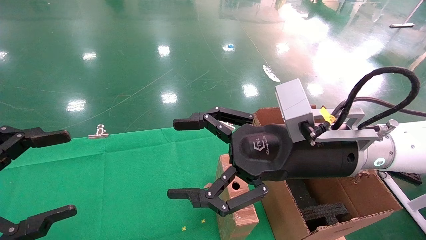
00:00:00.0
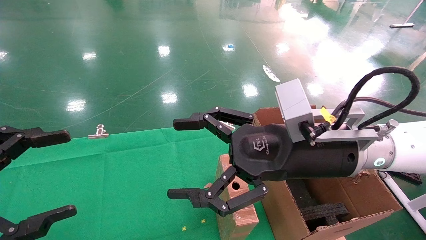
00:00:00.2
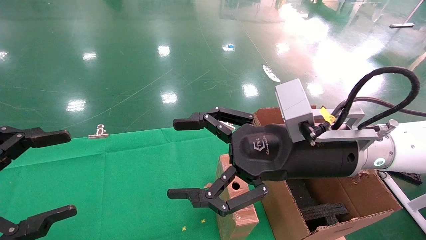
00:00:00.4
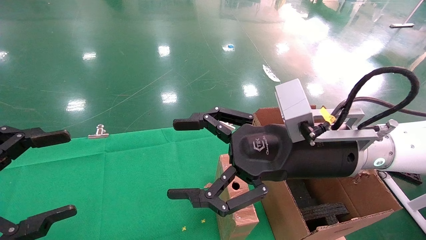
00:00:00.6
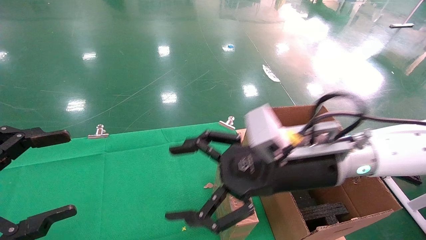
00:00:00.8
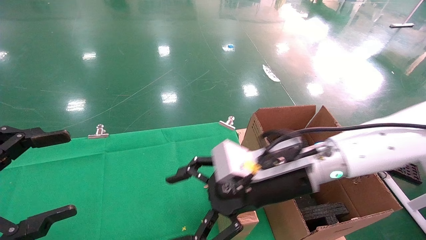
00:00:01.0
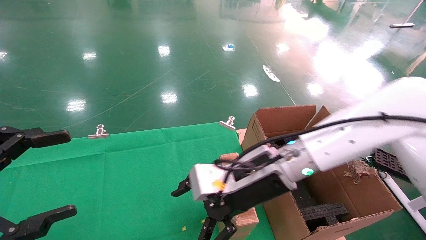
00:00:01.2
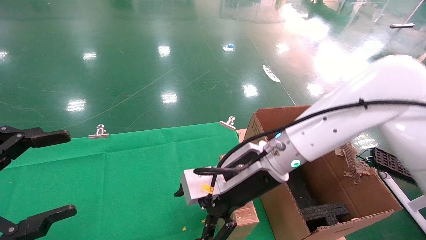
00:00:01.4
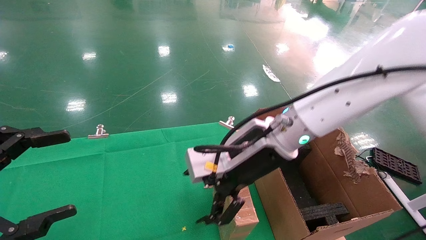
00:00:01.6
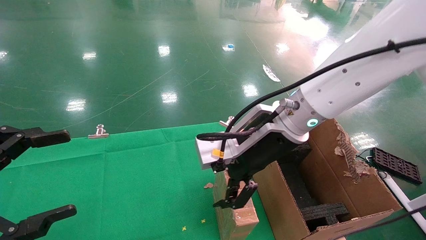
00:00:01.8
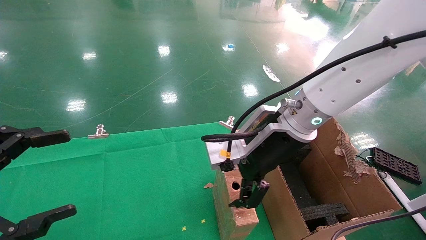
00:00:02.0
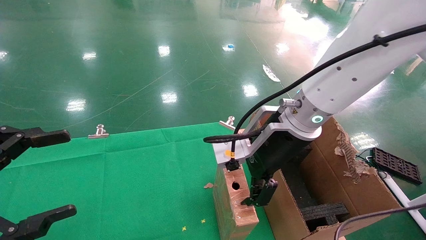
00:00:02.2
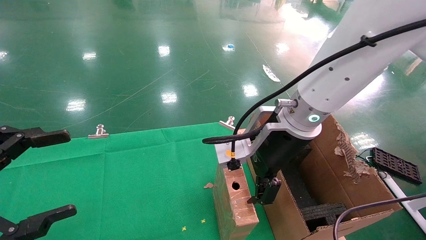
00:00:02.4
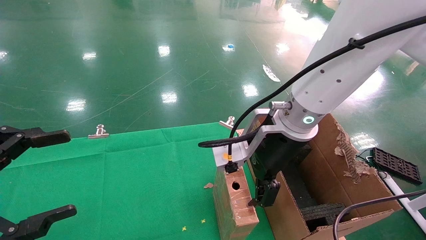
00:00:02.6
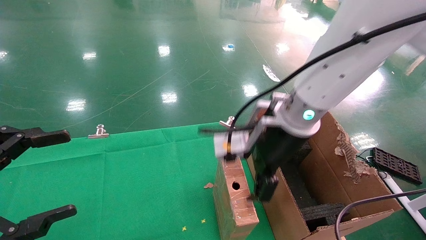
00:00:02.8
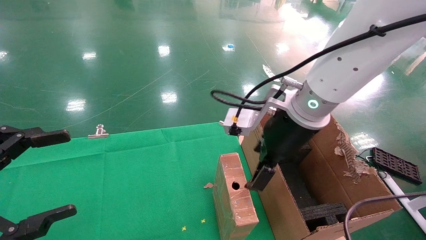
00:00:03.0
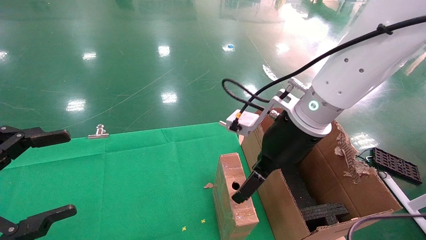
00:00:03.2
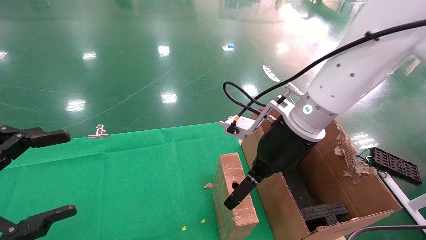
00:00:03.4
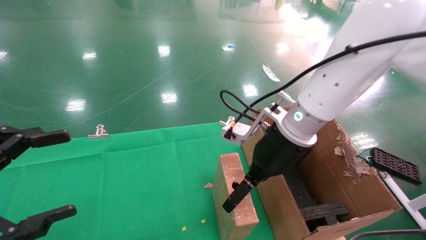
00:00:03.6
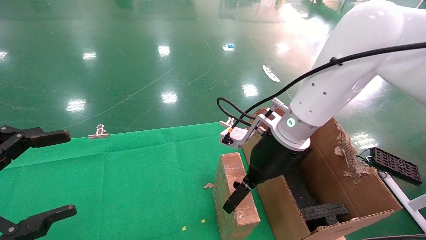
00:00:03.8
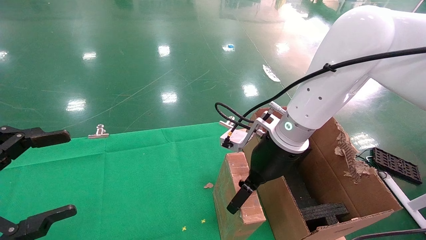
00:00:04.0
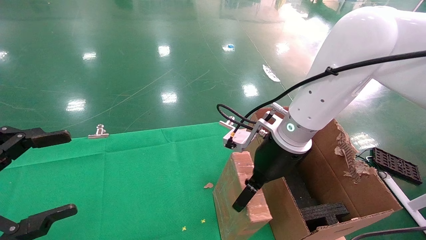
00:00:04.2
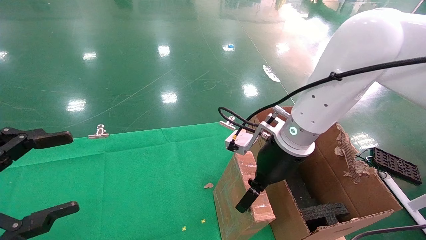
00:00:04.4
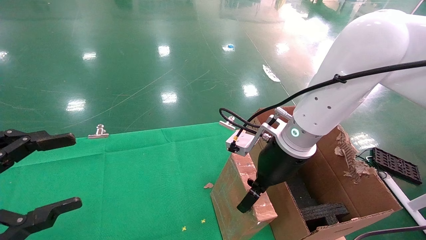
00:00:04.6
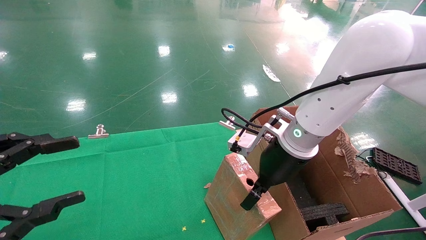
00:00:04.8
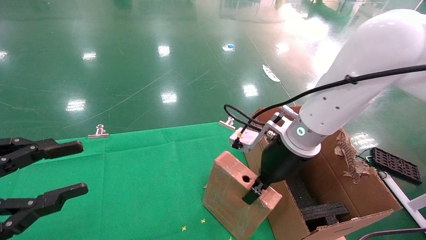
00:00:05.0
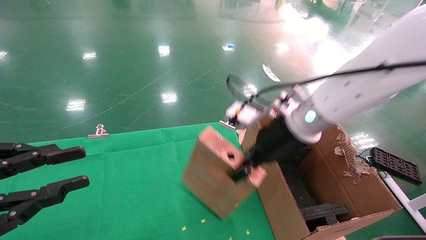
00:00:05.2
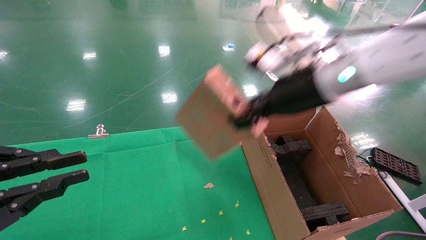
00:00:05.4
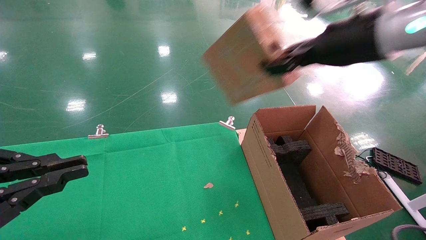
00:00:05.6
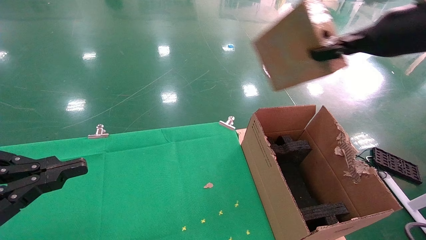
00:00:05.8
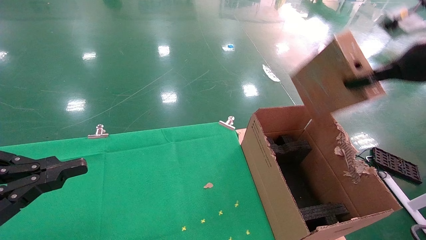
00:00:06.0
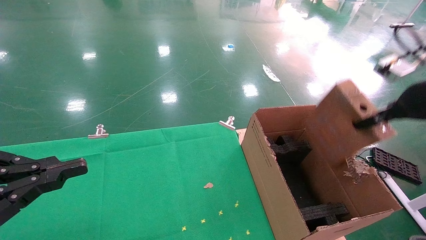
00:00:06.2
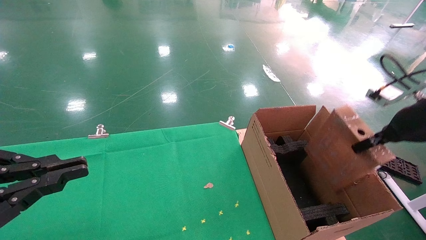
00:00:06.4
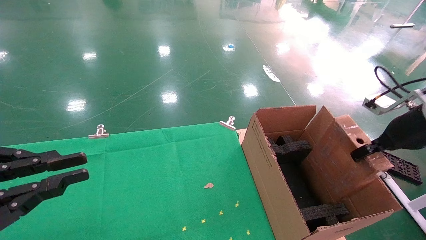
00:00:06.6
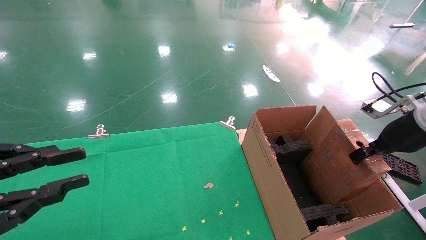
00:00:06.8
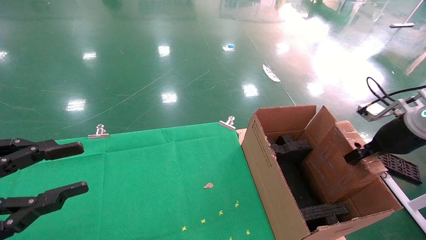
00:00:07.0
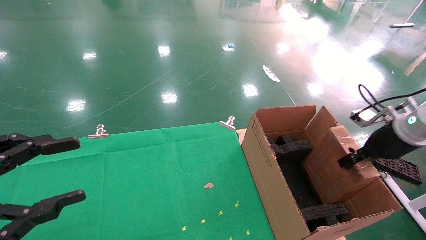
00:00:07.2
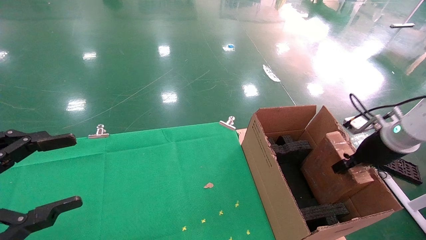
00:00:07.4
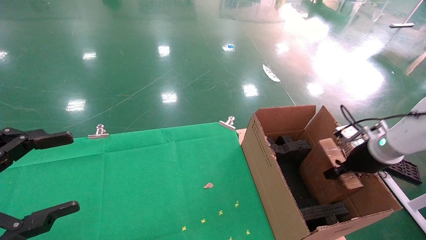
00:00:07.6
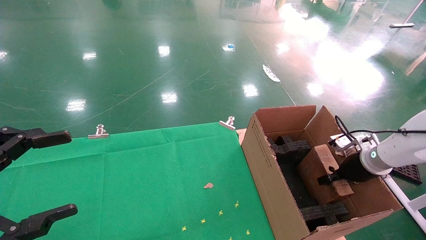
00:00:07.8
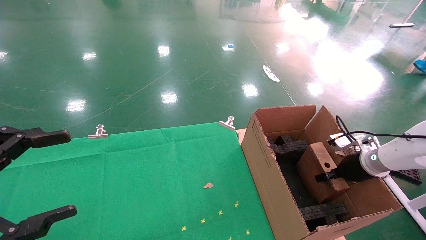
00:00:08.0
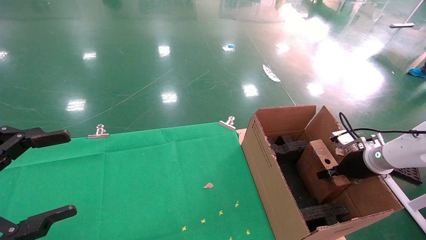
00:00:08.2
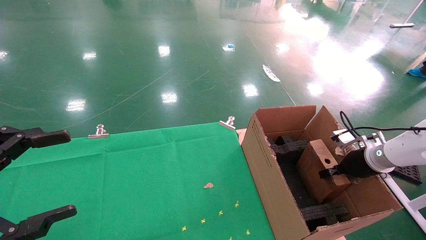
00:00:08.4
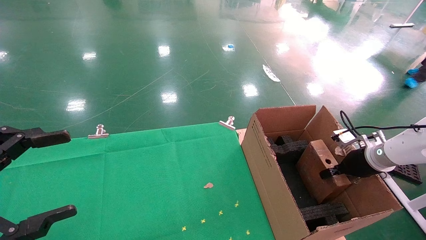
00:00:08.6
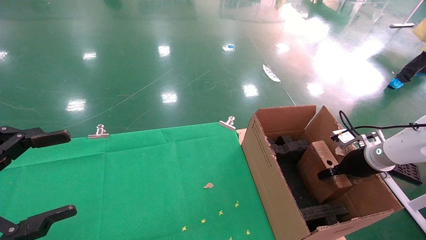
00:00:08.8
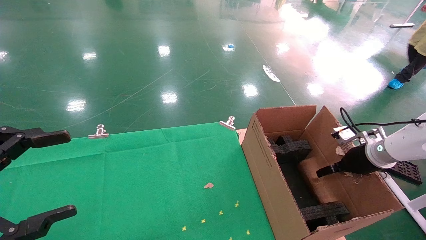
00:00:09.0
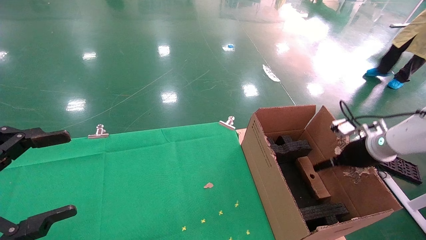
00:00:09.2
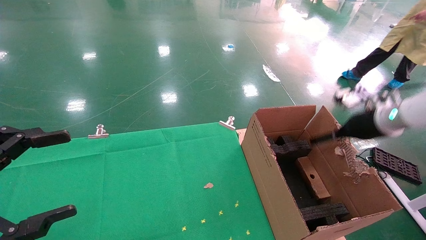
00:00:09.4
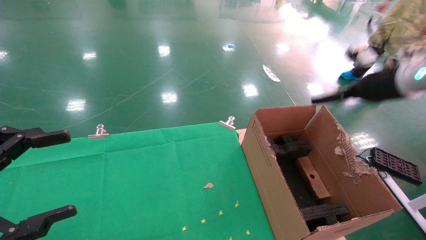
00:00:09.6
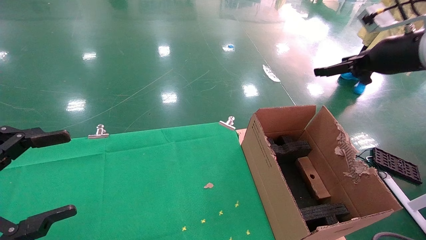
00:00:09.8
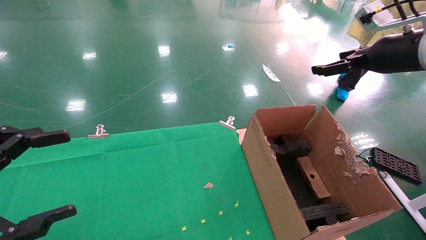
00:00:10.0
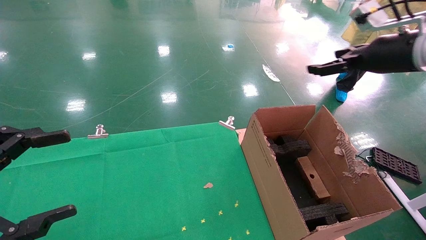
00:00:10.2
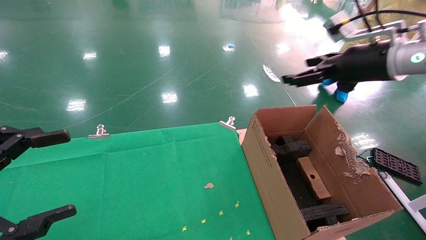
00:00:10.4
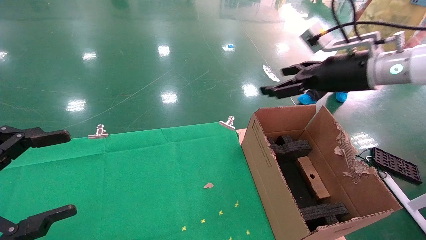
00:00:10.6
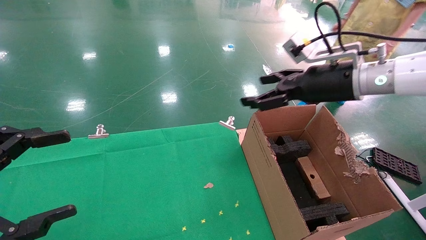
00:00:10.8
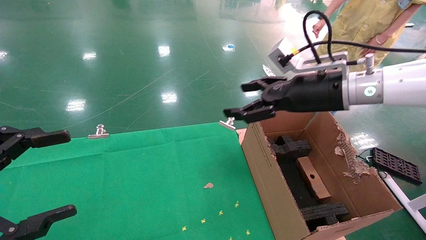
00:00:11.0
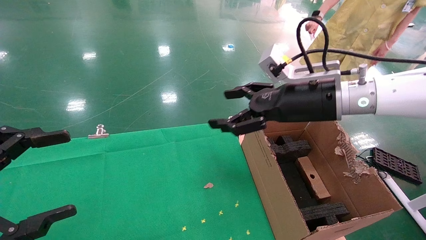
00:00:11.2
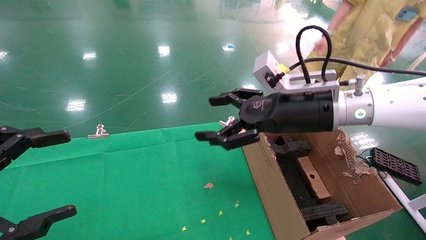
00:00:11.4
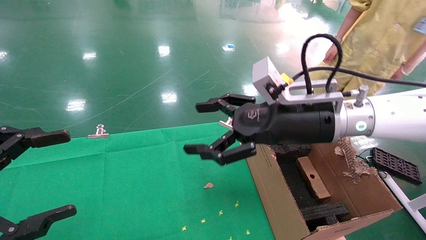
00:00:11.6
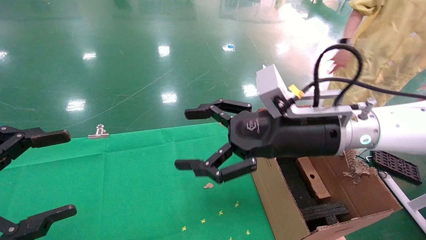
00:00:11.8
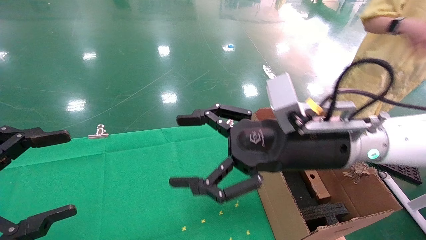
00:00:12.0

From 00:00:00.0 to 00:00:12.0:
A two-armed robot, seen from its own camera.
Task of the whole recording: using a robotic arm to pick up a cardboard box and palace it the carton.
Step, from 00:00:01.0 to 00:00:05.0: Pick up the mouse and the power cord paper box.
Step, from 00:00:05.2 to 00:00:09.2: Place the mouse and the power cord paper box into the container.
From 00:00:00.0 to 00:00:01.6: The right gripper shifts roughly 10 cm to the left and forward.
From 00:00:01.6 to 00:00:03.0: The right gripper changes place by some 5 cm.
From 00:00:03.0 to 00:00:04.4: The right gripper heads downward, covering approximately 5 cm.
From 00:00:04.4 to 00:00:06.0: The right gripper travels to the right and upward by approximately 25 cm, and closes. The left gripper closes its fingers.
From 00:00:06.0 to 00:00:07.6: The left gripper opens; the right gripper is displaced downward by roughly 20 cm.
From 00:00:07.6 to 00:00:09.0: The right gripper opens.
From 00:00:09.0 to 00:00:10.4: The right gripper goes about 25 cm upward and to the left, and opens.
From 00:00:10.4 to 00:00:12.0: The right gripper is displaced to the left, downward and backward by approximately 20 cm.

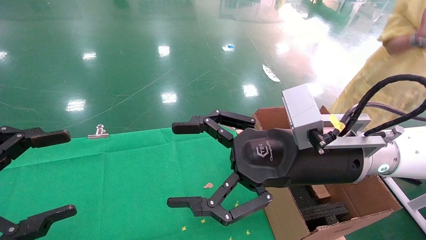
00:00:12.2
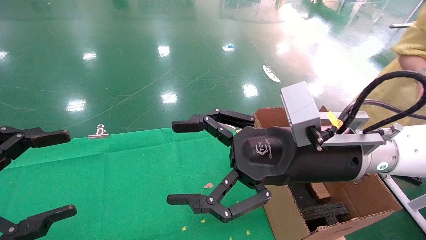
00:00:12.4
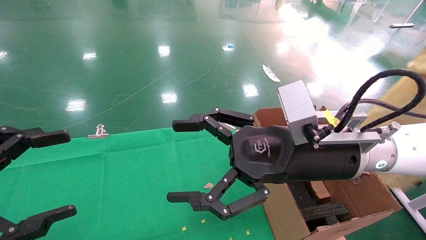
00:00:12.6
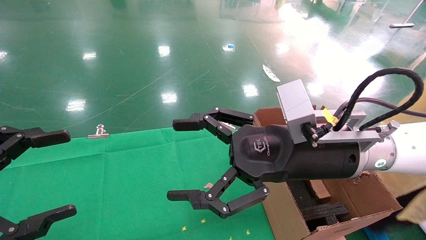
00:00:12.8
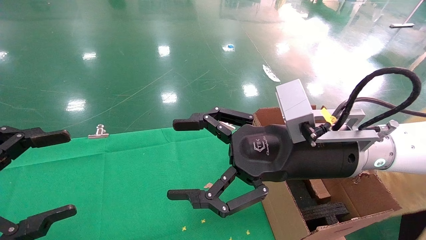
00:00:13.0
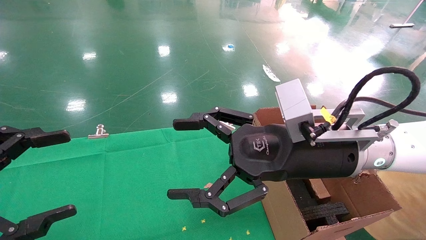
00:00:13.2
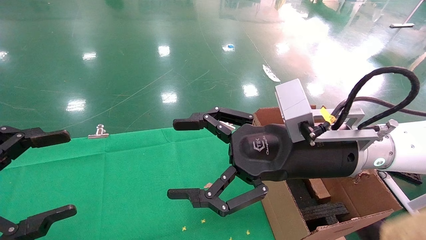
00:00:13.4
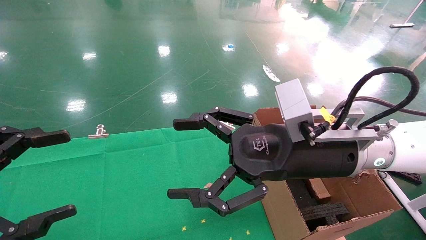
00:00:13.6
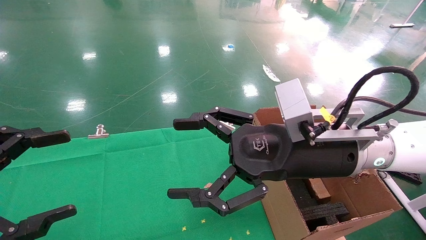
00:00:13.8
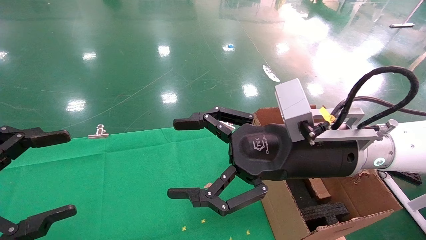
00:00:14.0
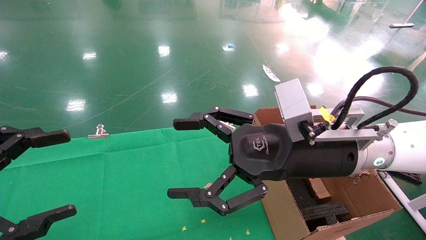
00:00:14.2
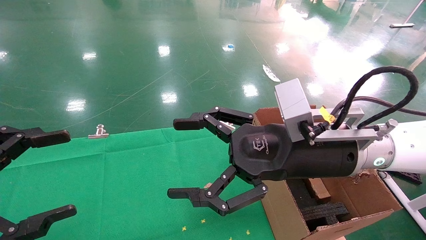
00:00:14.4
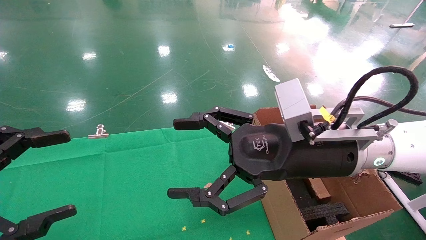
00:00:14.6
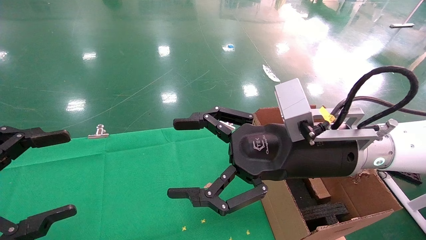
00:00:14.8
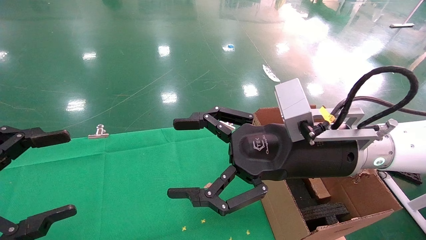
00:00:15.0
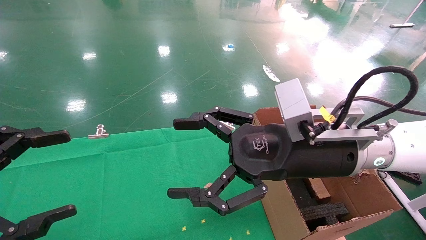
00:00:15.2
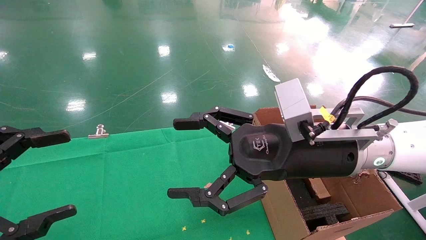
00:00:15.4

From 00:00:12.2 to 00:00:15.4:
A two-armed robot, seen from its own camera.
Task of the whole recording: using a robotic arm to pick up a cardboard box and palace it the carton.
From 00:00:12.2 to 00:00:15.4: Neither gripper changes place.

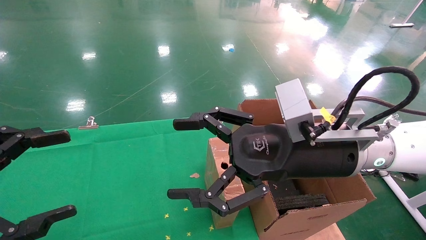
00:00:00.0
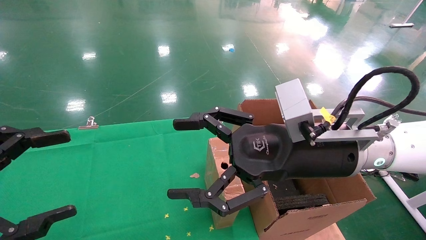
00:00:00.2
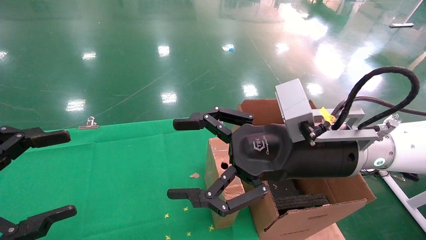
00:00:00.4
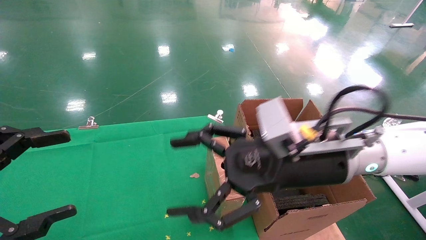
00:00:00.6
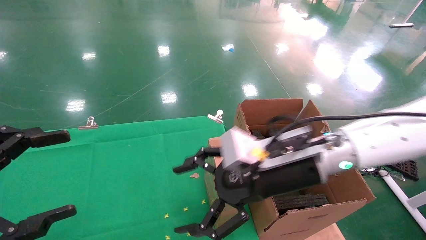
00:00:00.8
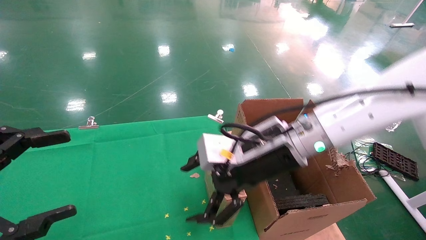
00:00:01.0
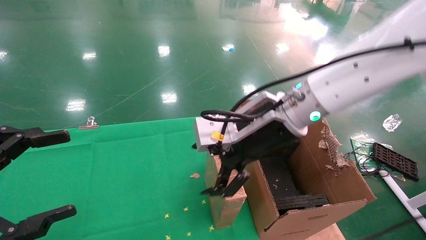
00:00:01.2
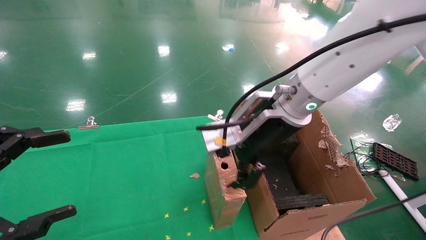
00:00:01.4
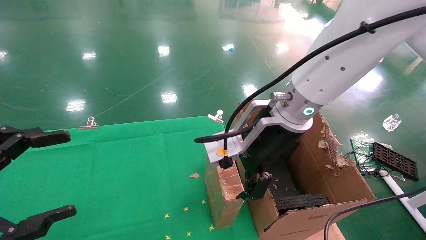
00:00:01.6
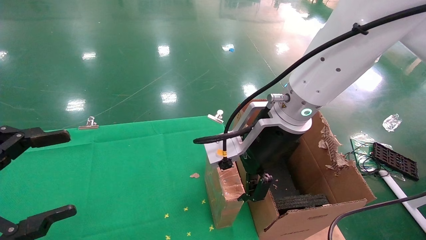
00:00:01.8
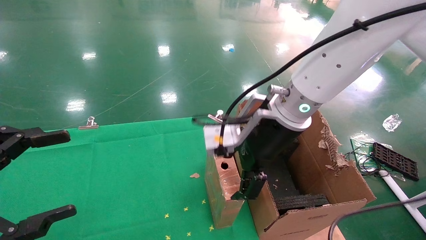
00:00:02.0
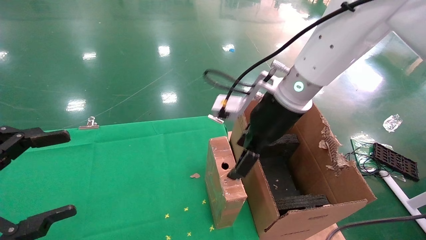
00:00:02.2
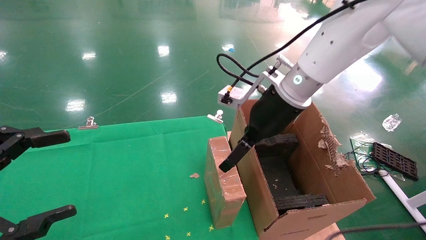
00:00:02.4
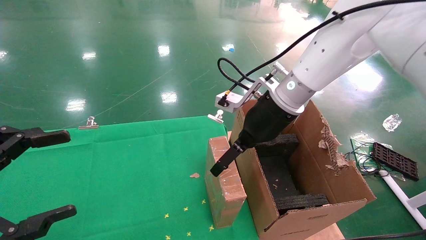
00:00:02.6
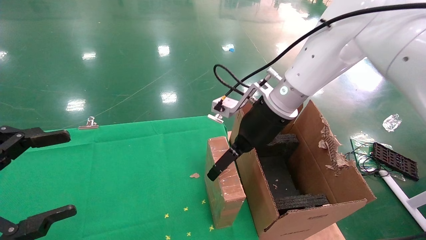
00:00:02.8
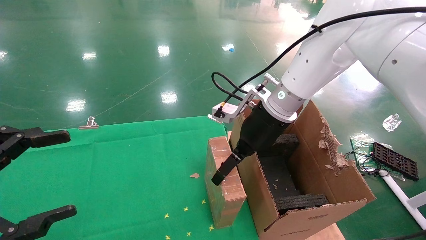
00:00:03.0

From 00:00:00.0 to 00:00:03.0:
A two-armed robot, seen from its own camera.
Task of the whole recording: using a robotic arm to pick up a cardboard box and palace it the carton.
From 00:00:00.0 to 00:00:01.6: The right gripper goes some 10 cm forward and to the left.
From 00:00:01.6 to 00:00:03.0: The right gripper travels forward by about 10 cm.
